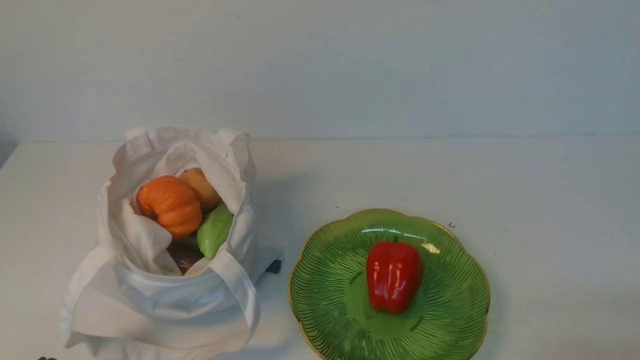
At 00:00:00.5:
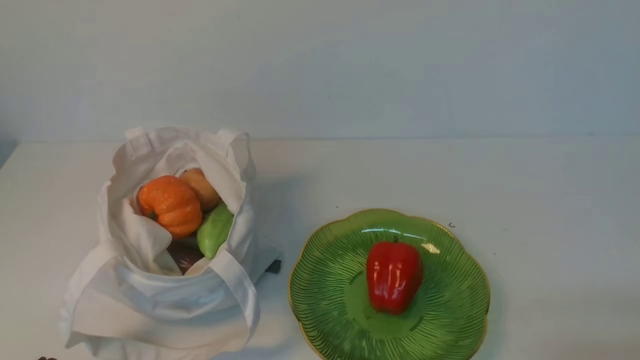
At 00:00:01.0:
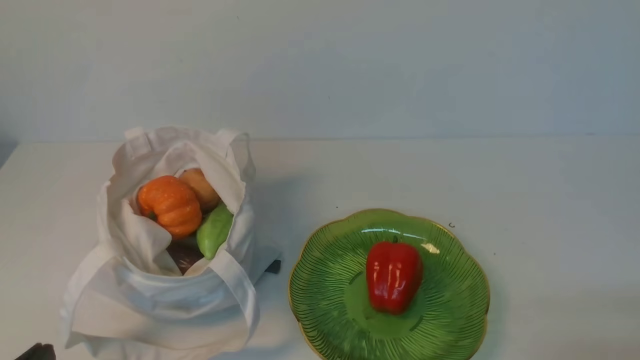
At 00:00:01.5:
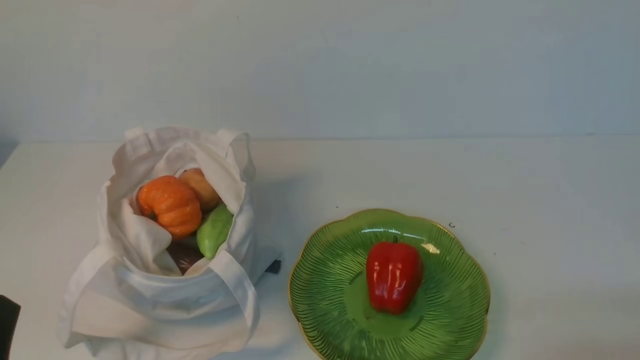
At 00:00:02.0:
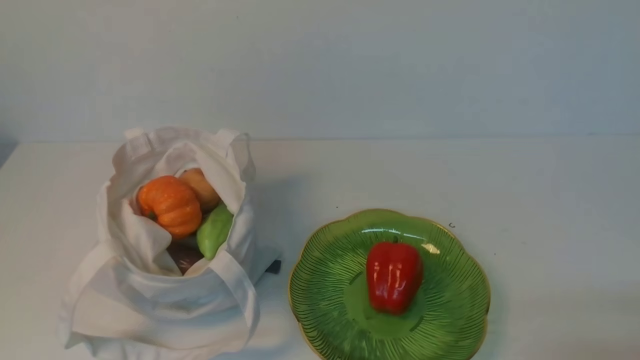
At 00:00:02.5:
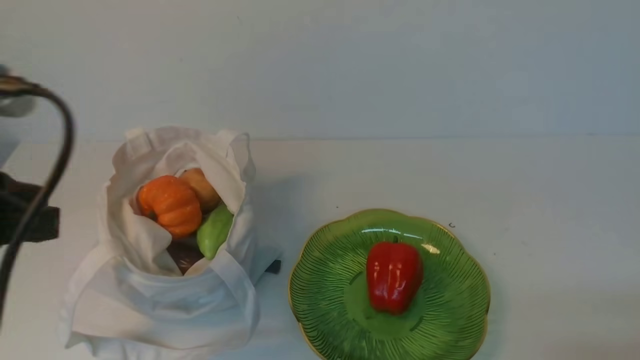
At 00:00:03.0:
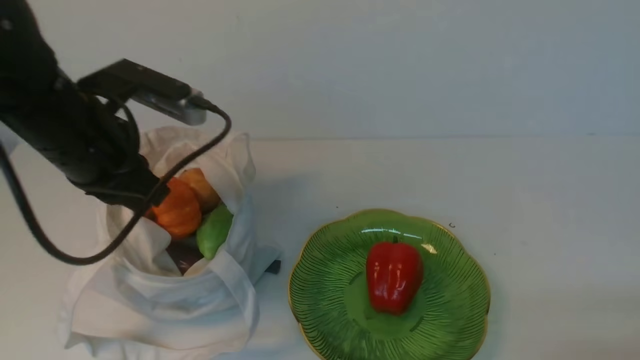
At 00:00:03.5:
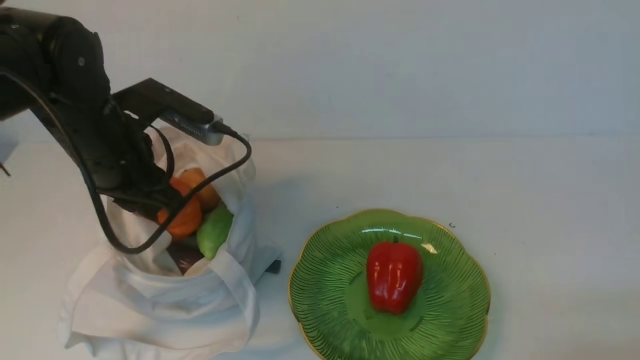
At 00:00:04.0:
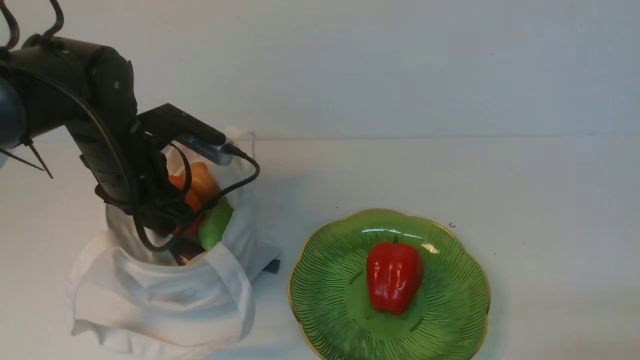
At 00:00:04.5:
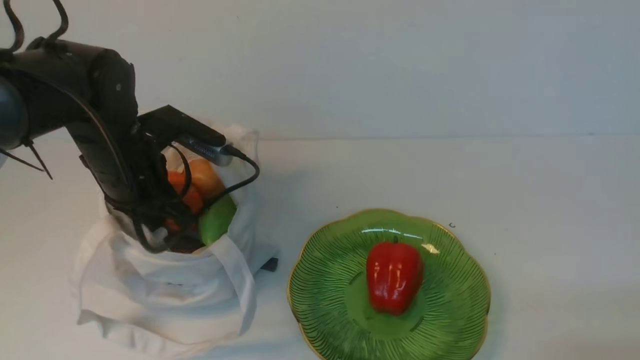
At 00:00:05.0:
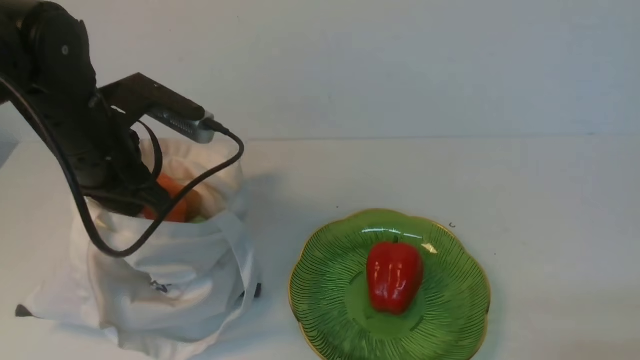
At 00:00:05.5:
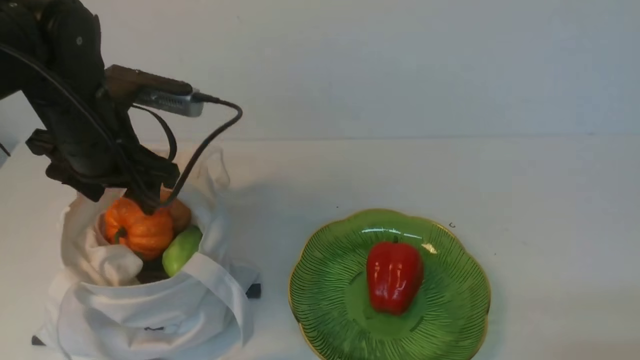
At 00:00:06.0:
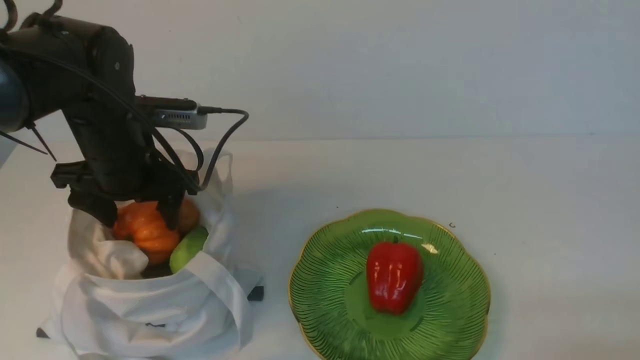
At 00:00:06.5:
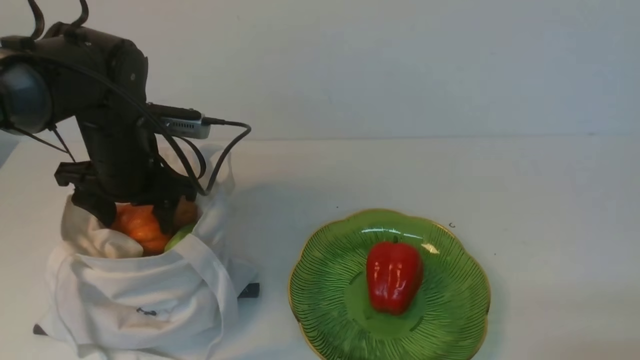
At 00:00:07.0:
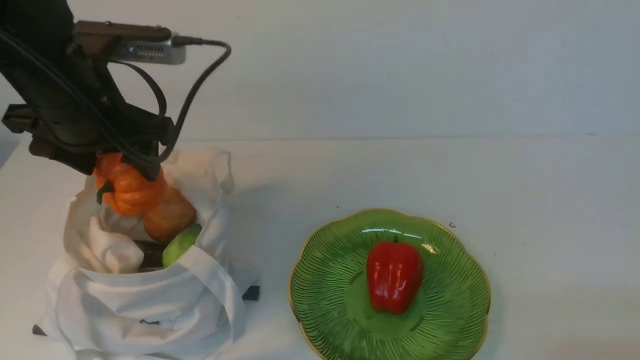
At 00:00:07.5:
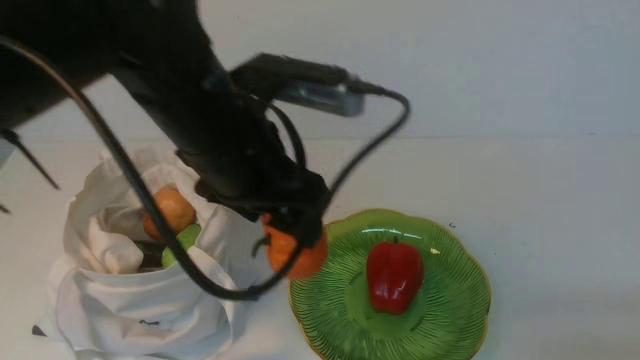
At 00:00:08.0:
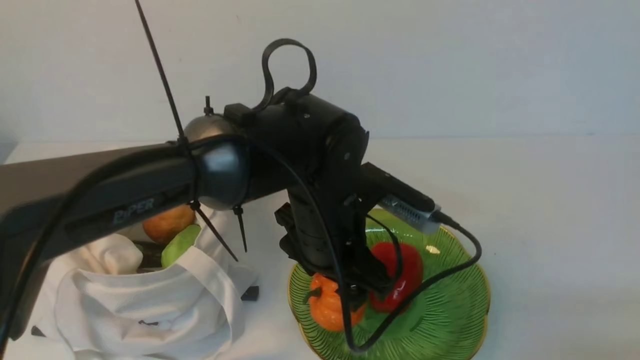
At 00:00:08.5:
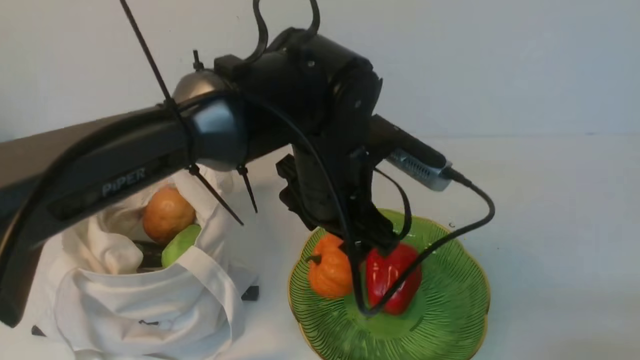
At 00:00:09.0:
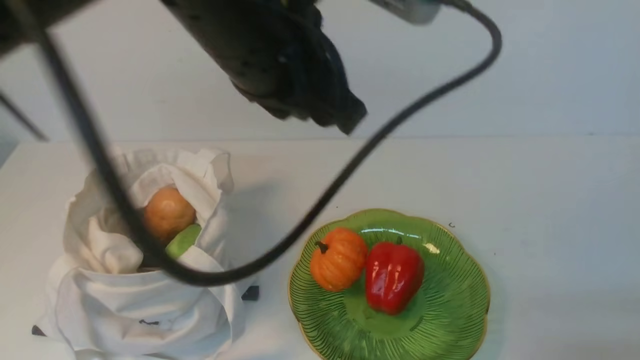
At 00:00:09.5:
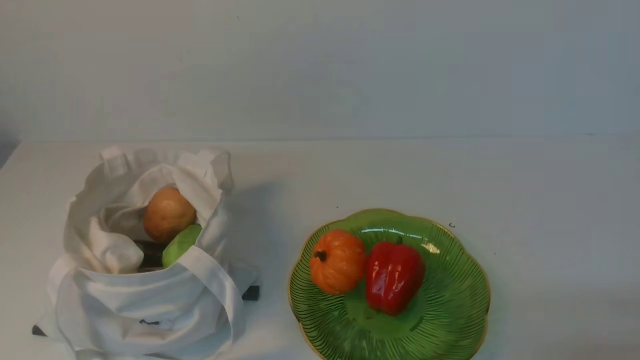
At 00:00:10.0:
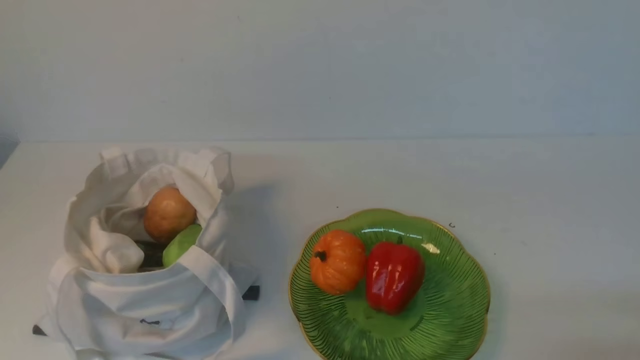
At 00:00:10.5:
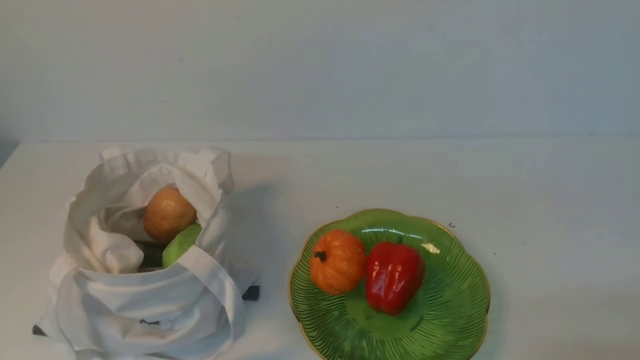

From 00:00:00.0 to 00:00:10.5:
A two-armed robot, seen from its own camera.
Task of the whole recording: take vegetables from cloth bag on white table place on plate.
Step, from 00:00:00.0 to 00:00:06.0: Grasp the pumpkin with left gripper.
Step, from 00:00:06.5 to 00:00:08.5: Place the pumpkin on the plate with left gripper.
From 00:00:02.0 to 00:00:04.0: The left gripper travels forward by roughly 30 cm, and opens.
From 00:00:04.0 to 00:00:06.5: The left gripper opens its fingers.
From 00:00:06.5 to 00:00:08.5: The left gripper heads to the right, covering some 20 cm.
From 00:00:08.5 to 00:00:10.5: The left gripper shifts approximately 40 cm to the left and backward, and closes.

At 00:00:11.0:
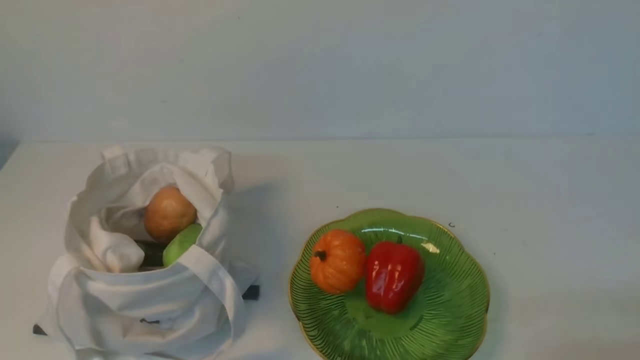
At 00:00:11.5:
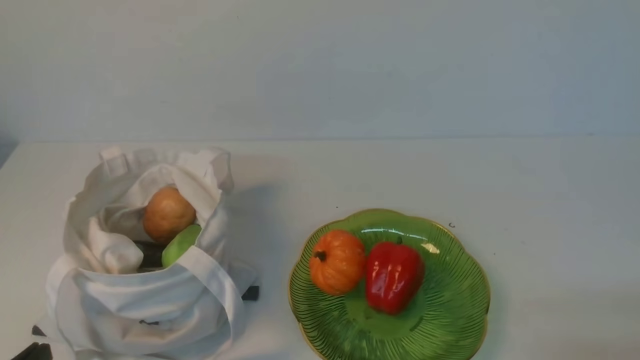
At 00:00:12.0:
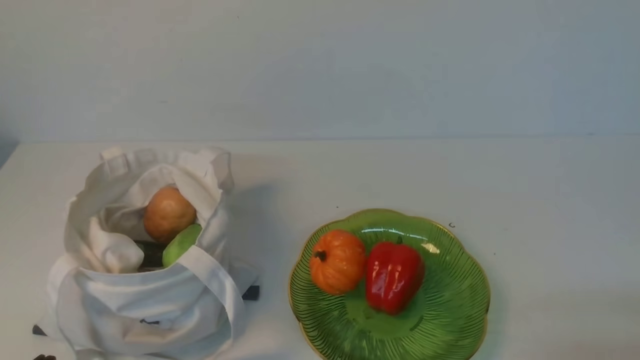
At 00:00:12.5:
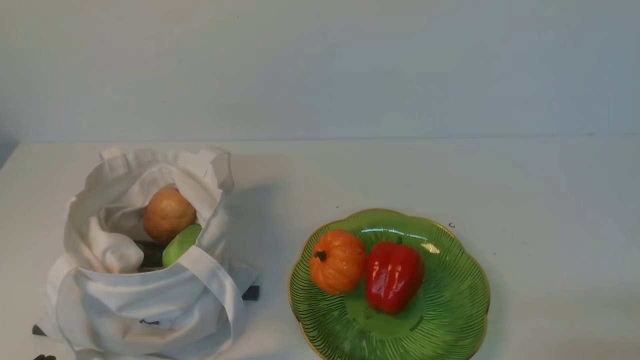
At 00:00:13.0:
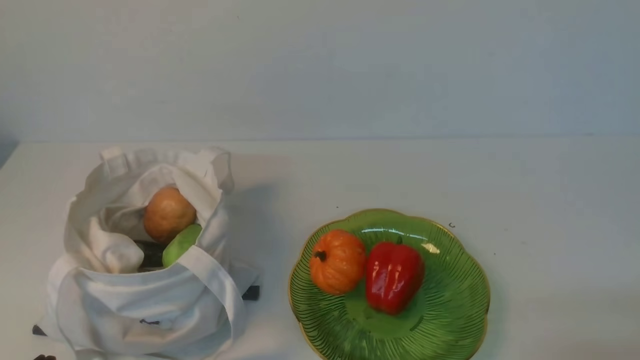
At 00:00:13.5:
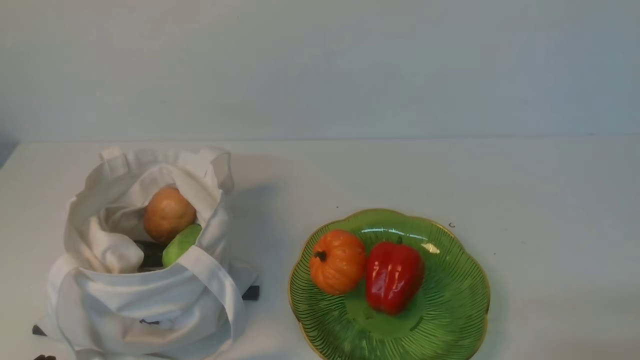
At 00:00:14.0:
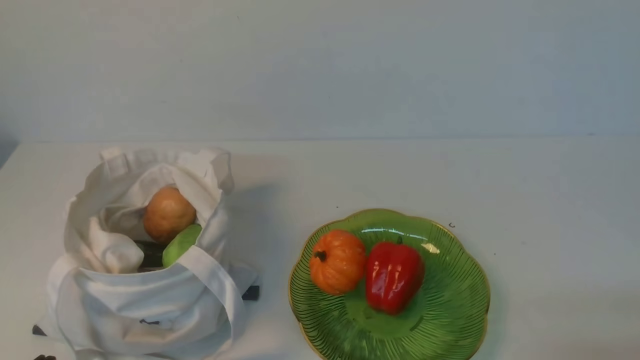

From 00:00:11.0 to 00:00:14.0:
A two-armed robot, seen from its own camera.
Task of the whole recording: take vegetables from cloth bag on white table place on plate.
From 00:00:12.5 to 00:00:14.0: Neither gripper changes place.

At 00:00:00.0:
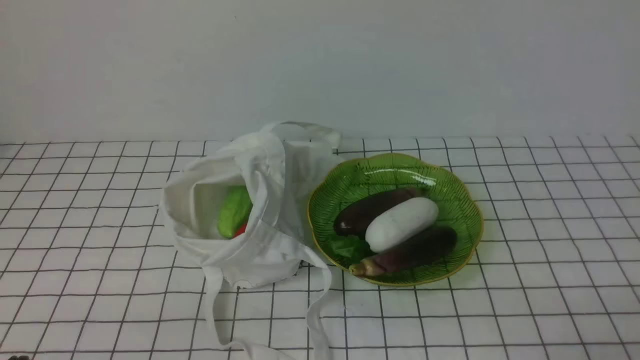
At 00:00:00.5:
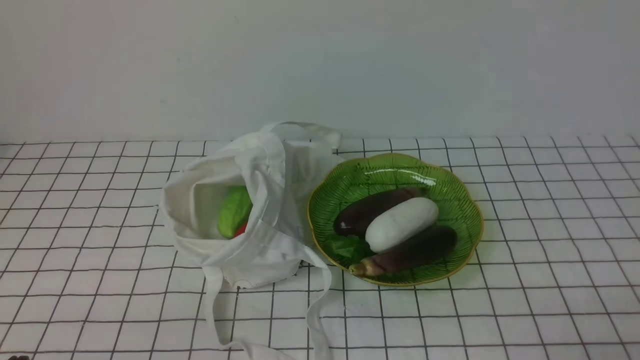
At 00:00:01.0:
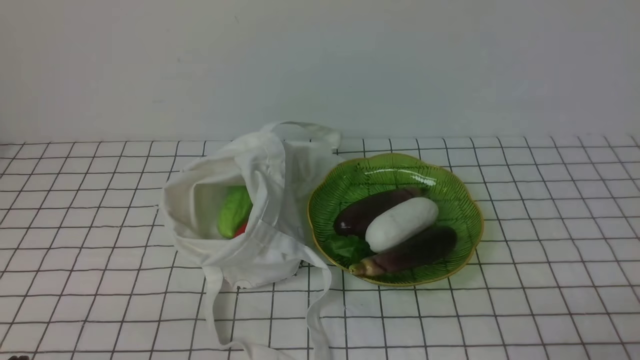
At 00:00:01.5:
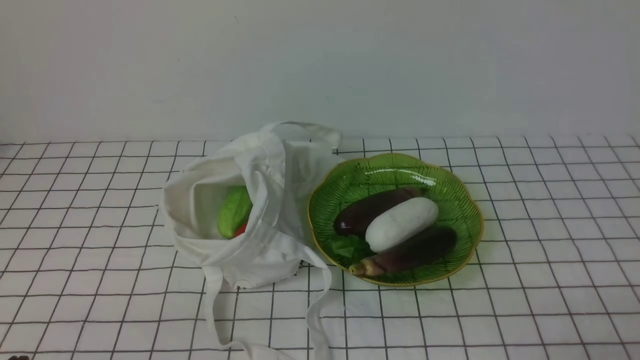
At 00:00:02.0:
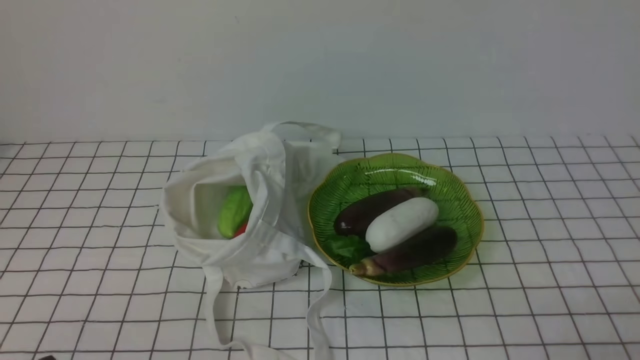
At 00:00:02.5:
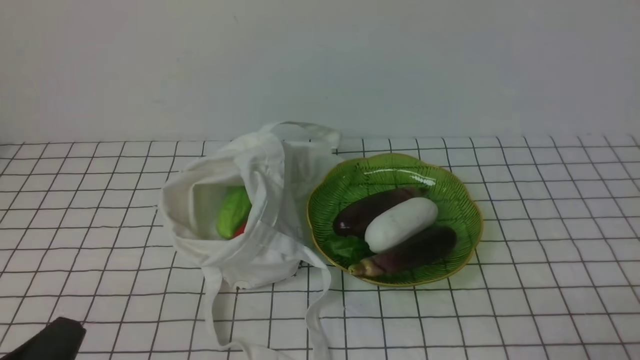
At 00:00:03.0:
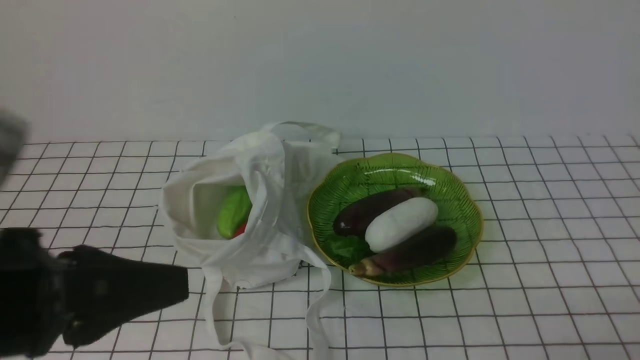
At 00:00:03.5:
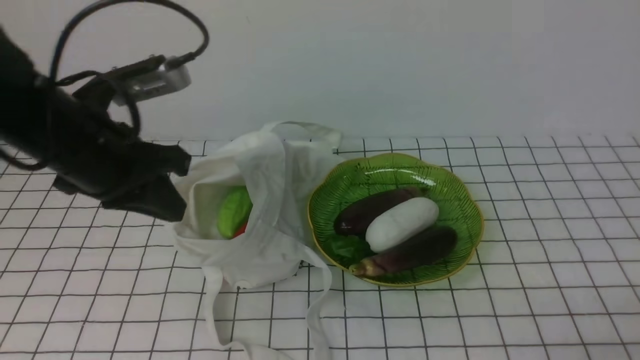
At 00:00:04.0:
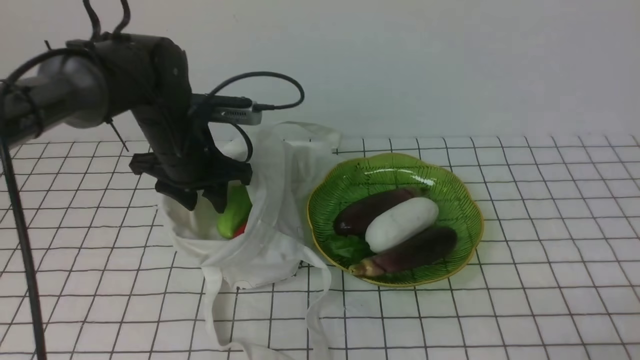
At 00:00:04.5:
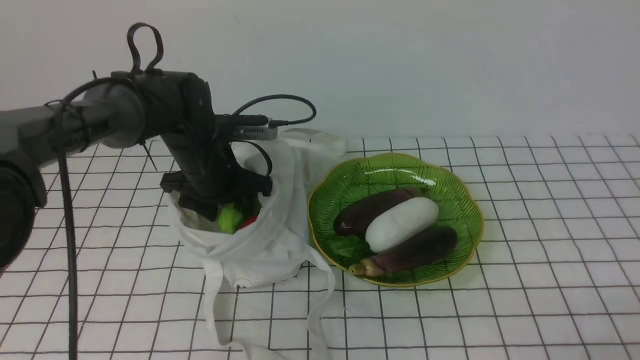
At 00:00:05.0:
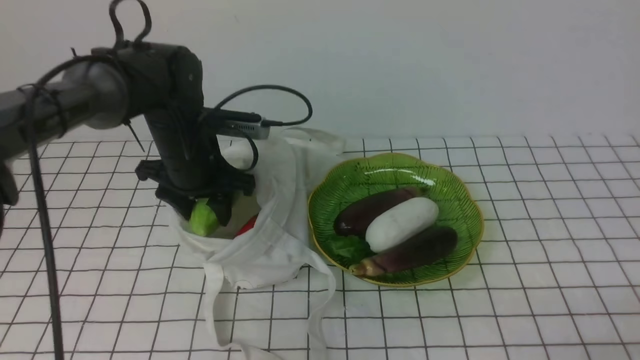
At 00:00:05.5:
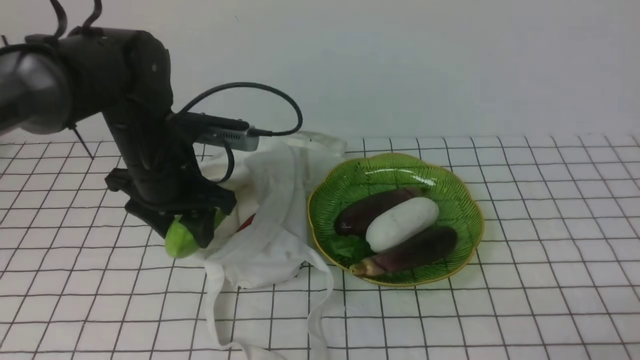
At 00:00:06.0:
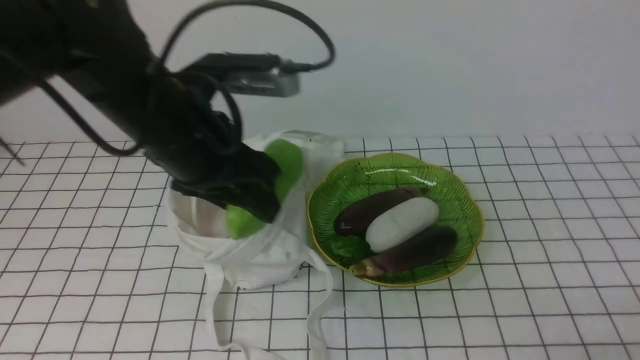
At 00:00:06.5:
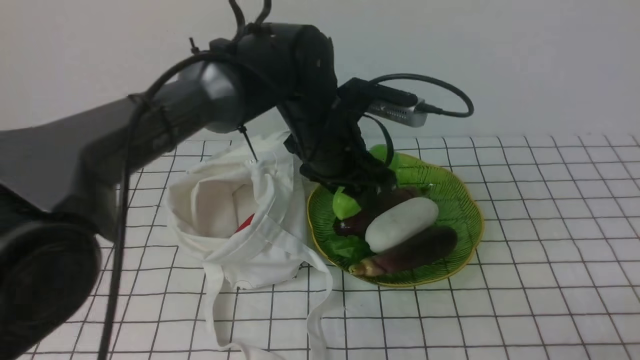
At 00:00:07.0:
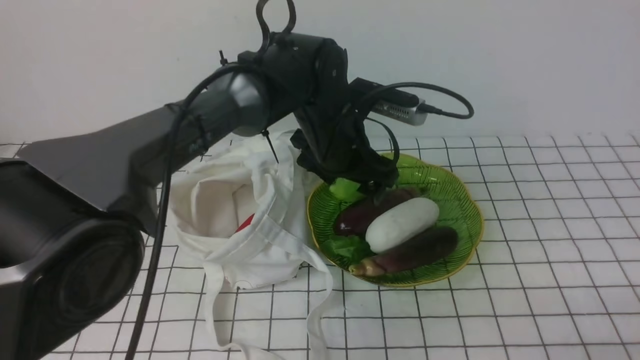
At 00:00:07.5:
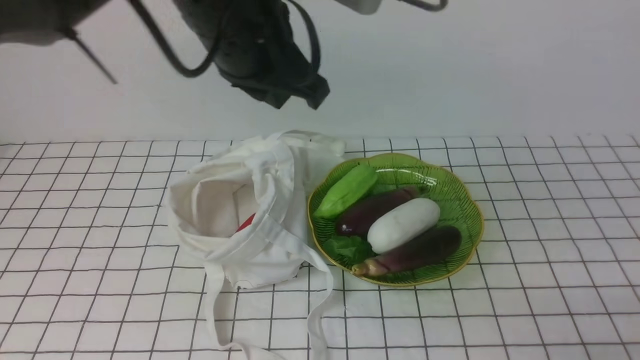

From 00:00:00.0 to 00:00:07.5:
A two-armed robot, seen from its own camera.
Task of the whole recording: take vegetables from bag on white checkered tablecloth place on plate.
Step, from 00:00:00.0 to 00:00:04.5: Grasp the bitter melon with left gripper.
Step, from 00:00:05.0 to 00:00:07.0: Place the bitter melon on the plate with left gripper.
From 00:00:02.0 to 00:00:04.0: The left gripper is displaced forward by roughly 35 cm, and opens up.
From 00:00:04.0 to 00:00:05.5: The left gripper heads backward, covering about 5 cm.
From 00:00:05.5 to 00:00:07.5: The left gripper heads upward and to the right, covering roughly 15 cm, and closes.
